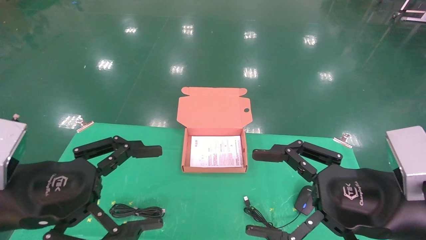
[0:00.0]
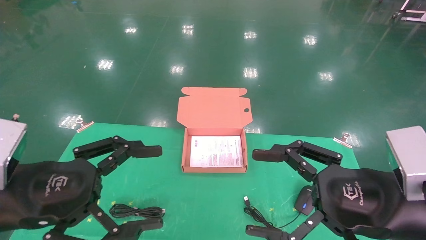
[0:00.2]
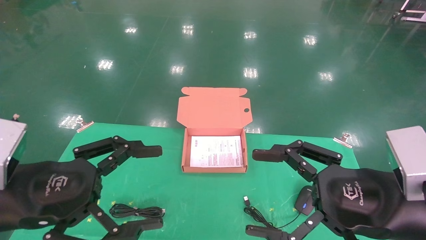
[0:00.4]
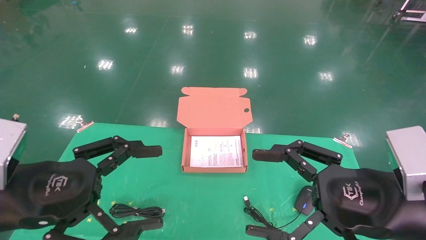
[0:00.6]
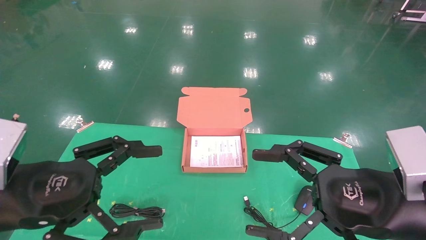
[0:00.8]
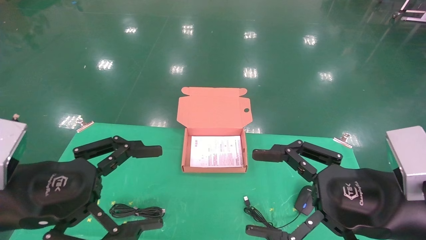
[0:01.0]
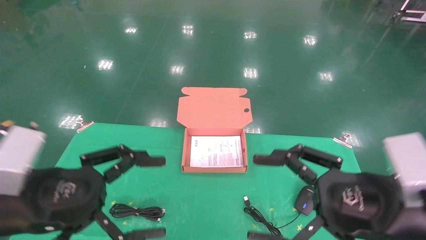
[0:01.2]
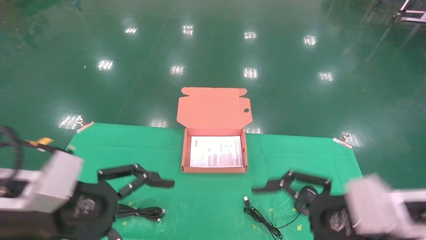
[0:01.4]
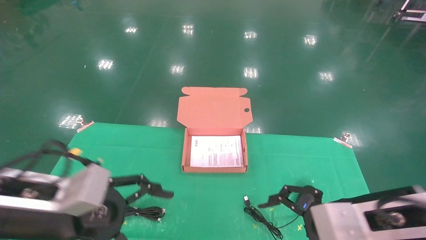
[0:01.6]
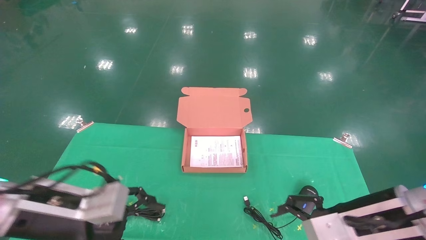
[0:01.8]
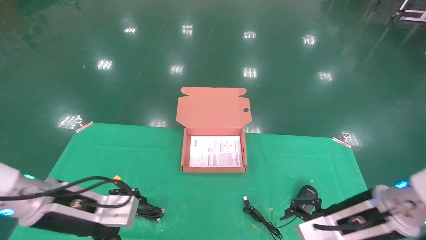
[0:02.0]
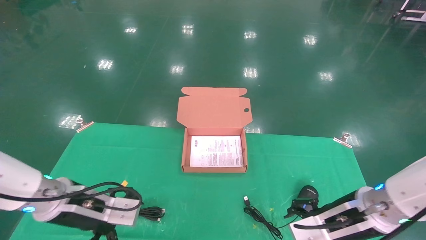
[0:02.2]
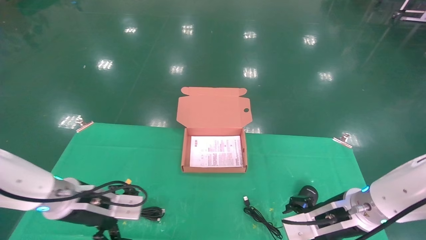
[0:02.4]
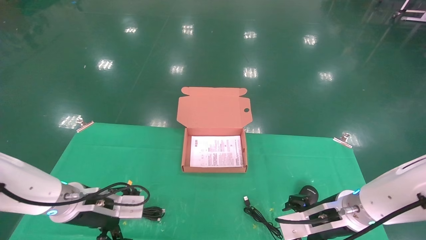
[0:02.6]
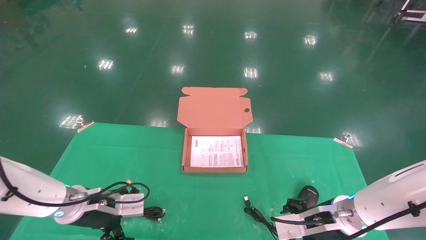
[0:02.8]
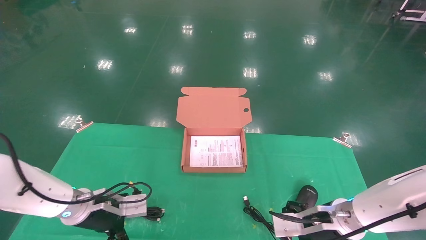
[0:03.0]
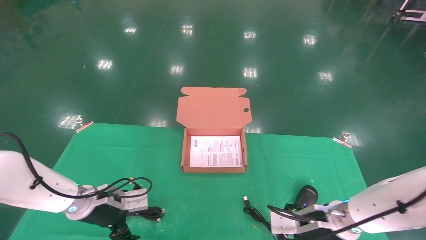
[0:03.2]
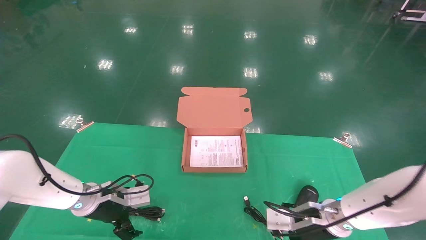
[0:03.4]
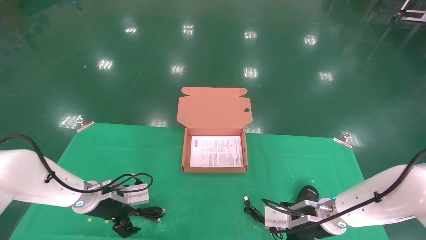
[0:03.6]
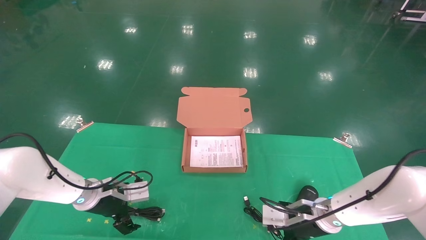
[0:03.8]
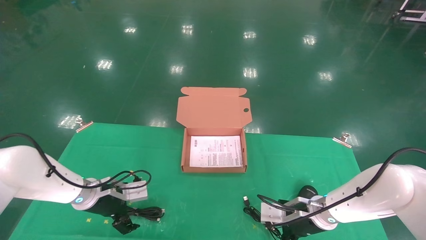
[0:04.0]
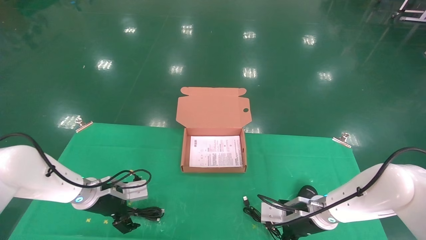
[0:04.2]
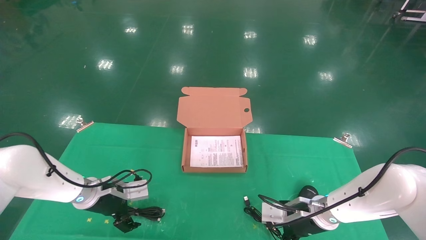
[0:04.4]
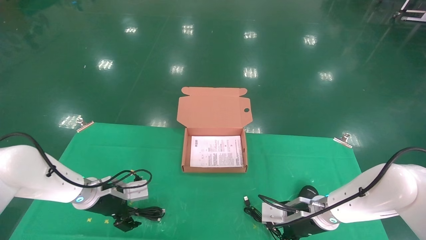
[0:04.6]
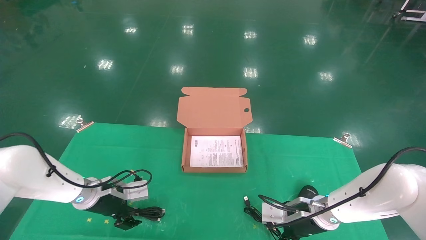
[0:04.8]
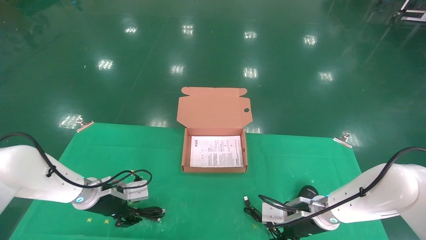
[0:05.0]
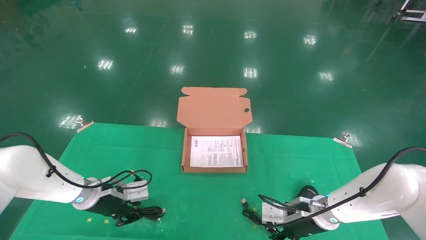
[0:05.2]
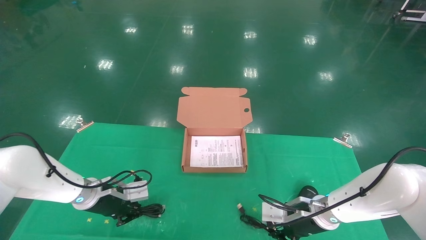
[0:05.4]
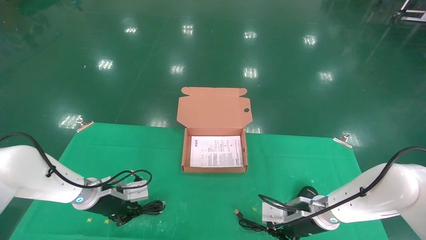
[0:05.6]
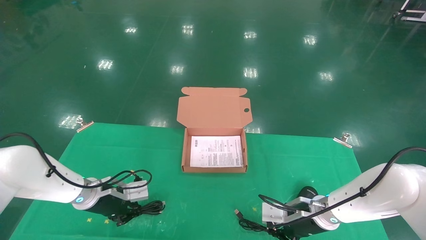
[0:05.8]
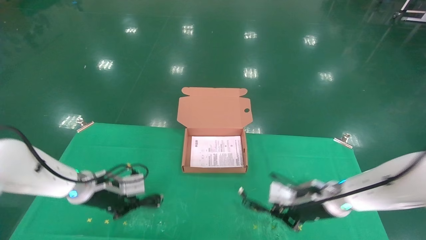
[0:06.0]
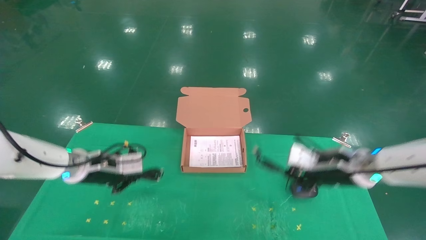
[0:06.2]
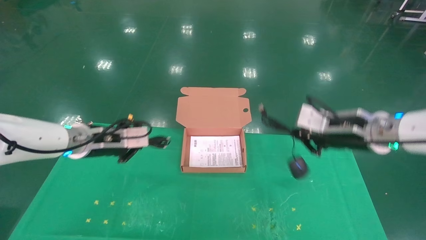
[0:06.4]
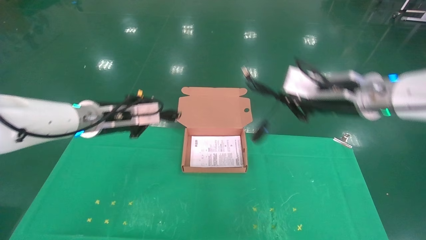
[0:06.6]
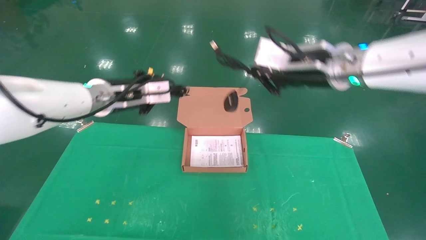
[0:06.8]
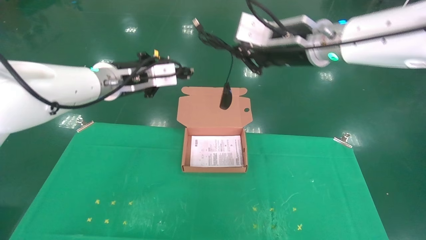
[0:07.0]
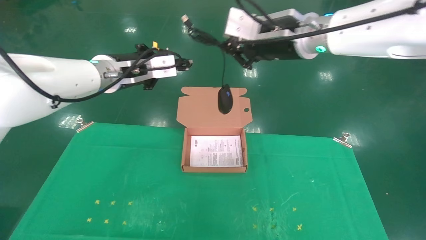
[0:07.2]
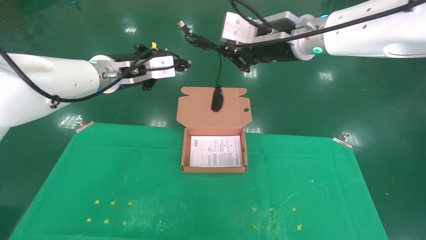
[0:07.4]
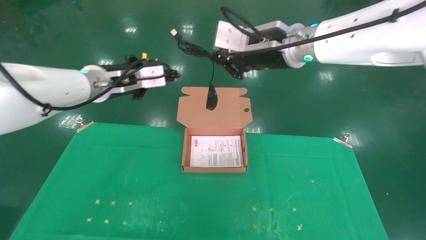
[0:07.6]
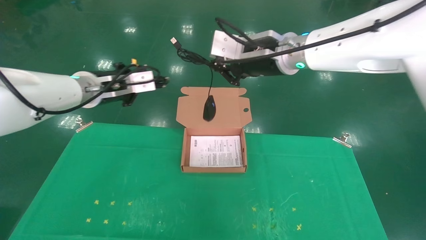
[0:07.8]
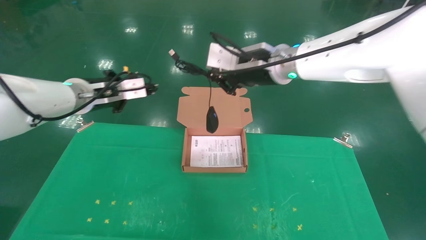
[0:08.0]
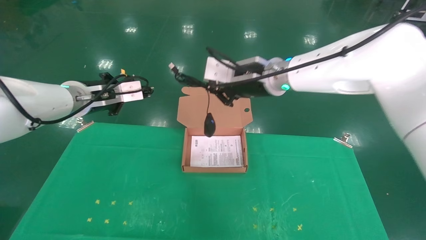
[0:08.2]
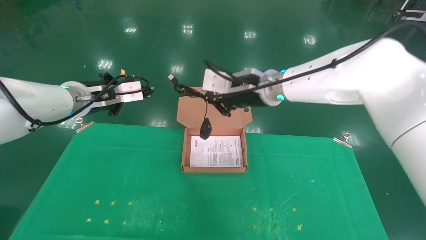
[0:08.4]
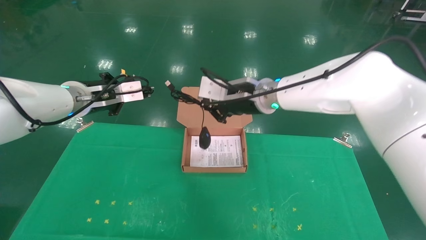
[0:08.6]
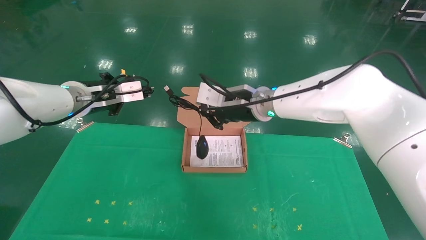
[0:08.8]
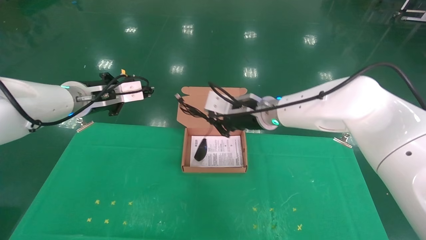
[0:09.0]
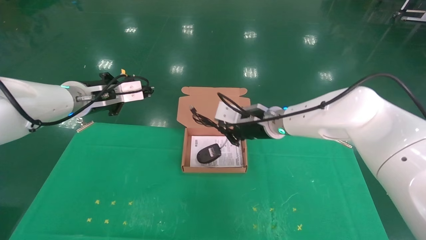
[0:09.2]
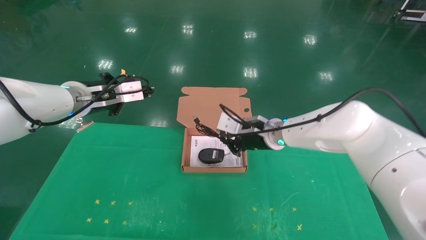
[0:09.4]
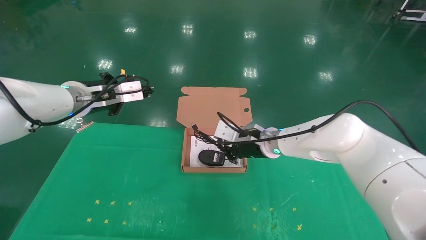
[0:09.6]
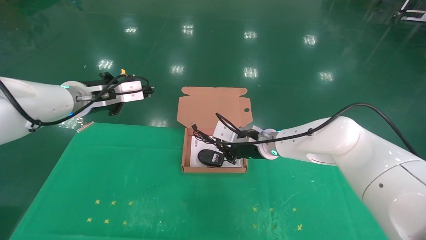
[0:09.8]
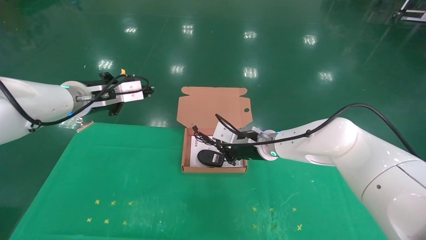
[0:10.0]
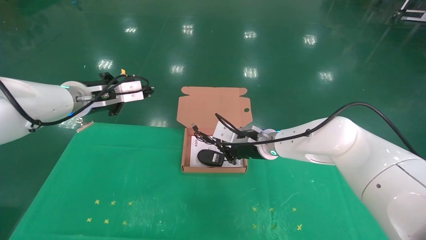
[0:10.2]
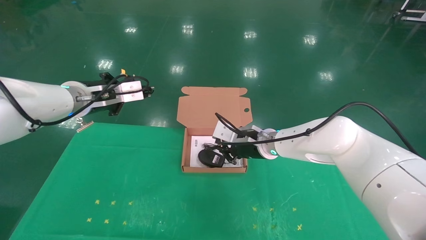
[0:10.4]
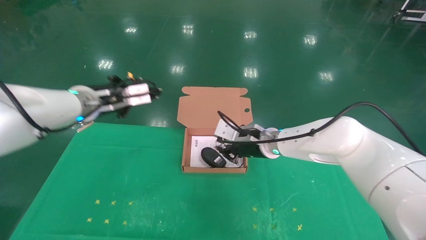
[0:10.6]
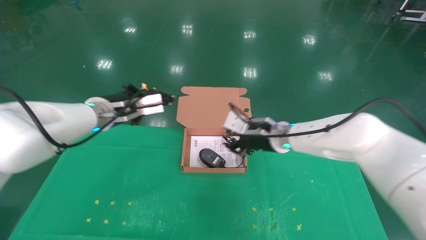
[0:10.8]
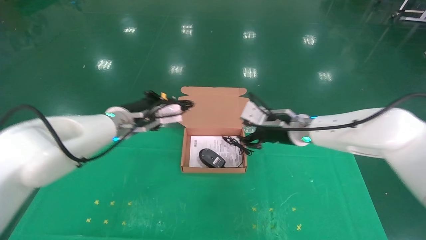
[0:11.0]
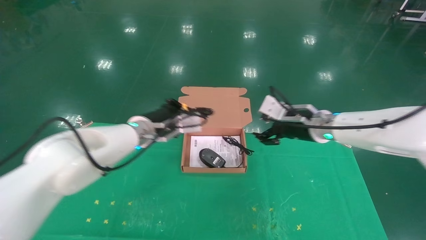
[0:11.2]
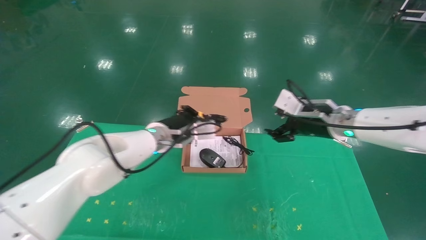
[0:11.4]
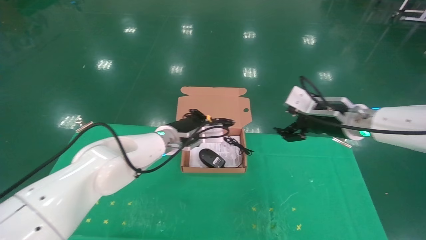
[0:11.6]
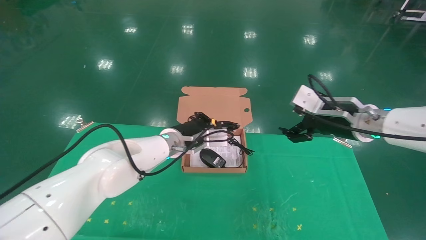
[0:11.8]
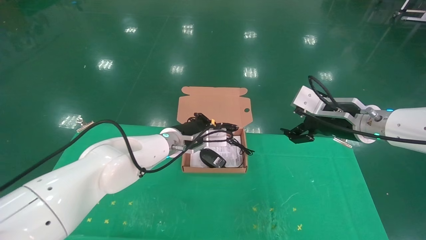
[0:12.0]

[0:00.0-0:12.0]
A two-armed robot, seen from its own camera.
Task of the whole recording: grasp data cable left put into box grasp mouse right put into box.
Step, 0:01.4 to 0:06.4: Grab and pick up both the mouse and power cord from the accessory packaging area at the same time.
0:00.0 to 0:01.6: The right gripper moves roughly 5 cm. The left gripper ends up some 5 cm from where it was.
0:01.6 to 0:03.0: The two grippers go about 15 cm forward and downward.
0:03.0 to 0:04.4: Both grippers travel together forward, about 5 cm.
0:04.4 to 0:06.0: The left gripper closes; the right gripper goes some 5 cm upward, and closes up.
0:06.0 to 0:07.6: The left gripper is displaced upward by some 20 cm. The right gripper shifts some 30 cm upward and to the left.
0:07.6 to 0:09.0: The right gripper shifts about 15 cm downward and forward.
0:09.0 to 0:10.4: The right gripper travels downward by about 5 cm.
0:10.4 to 0:12.0: The right gripper travels to the right, backward and upward by about 20 cm, and opens; the left gripper travels to the right and downward by about 20 cm.

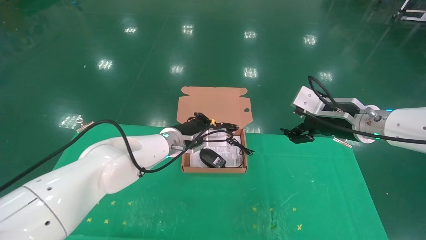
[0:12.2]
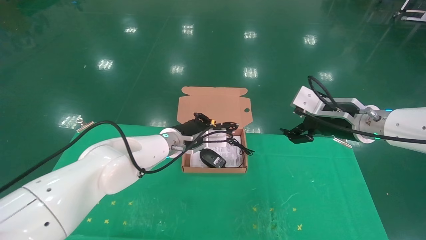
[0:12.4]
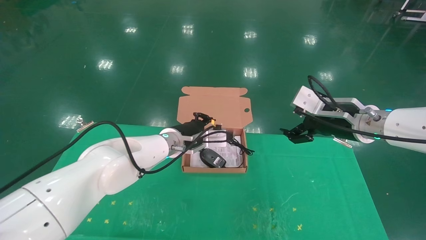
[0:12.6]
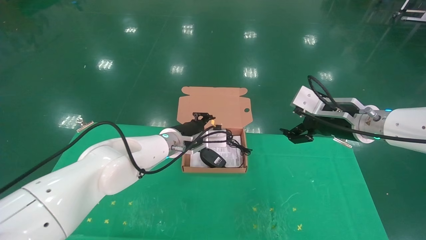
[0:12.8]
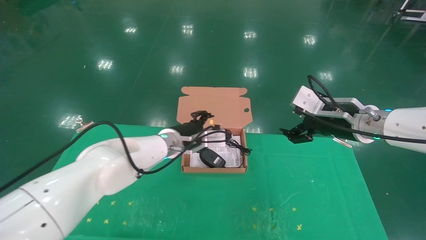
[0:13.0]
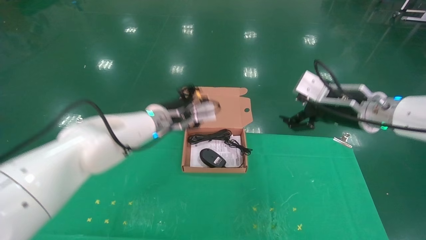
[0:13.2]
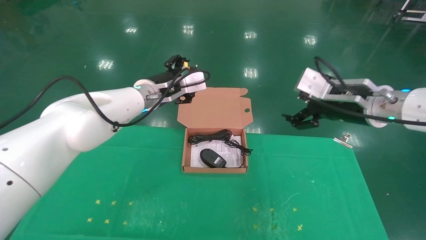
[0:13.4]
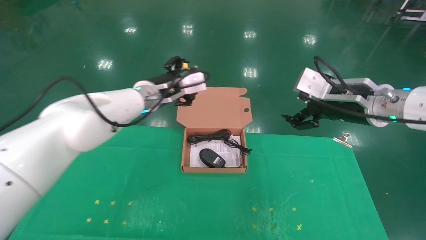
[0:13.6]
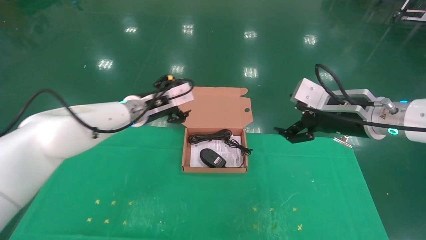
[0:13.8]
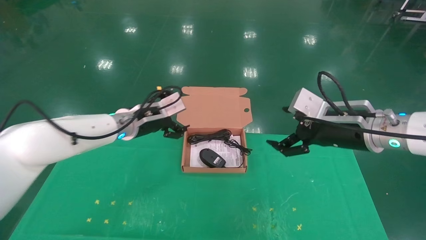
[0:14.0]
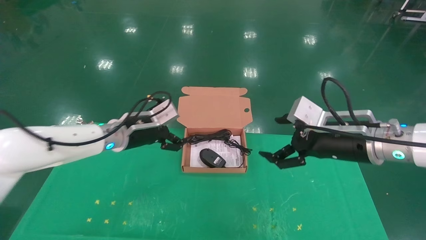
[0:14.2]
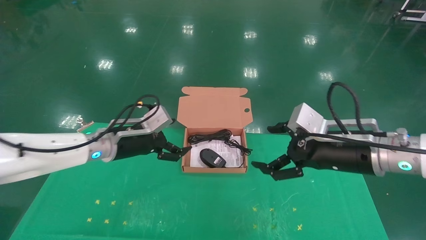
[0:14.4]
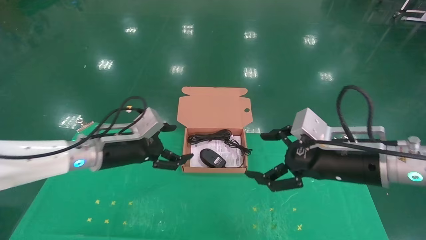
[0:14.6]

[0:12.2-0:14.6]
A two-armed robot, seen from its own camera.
Task of the whole recording: grasp data cable left put into box grasp mouse right put into box.
0:12.2 to 0:13.4: The left gripper goes about 10 cm upward, and opens.
0:13.4 to 0:14.6: The right gripper shifts approximately 10 cm backward and downward. Meanwhile the left gripper goes about 15 cm to the left, backward and downward.
